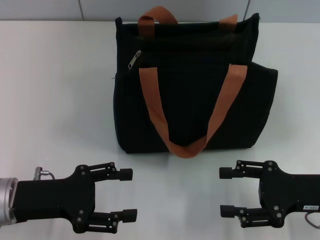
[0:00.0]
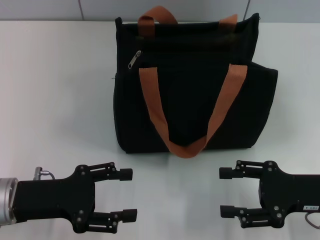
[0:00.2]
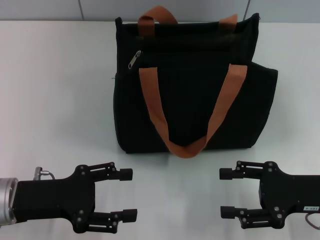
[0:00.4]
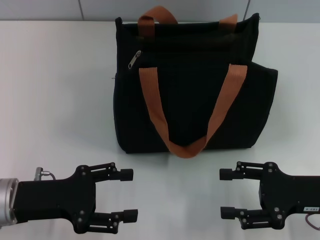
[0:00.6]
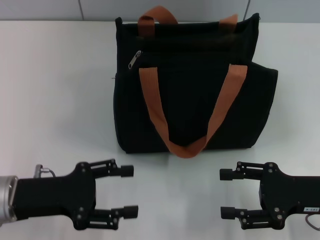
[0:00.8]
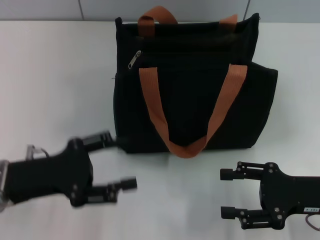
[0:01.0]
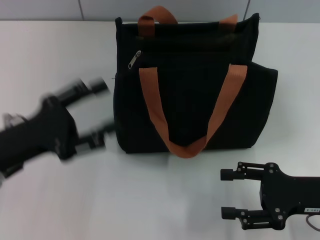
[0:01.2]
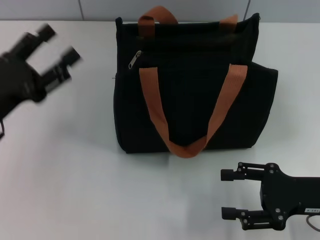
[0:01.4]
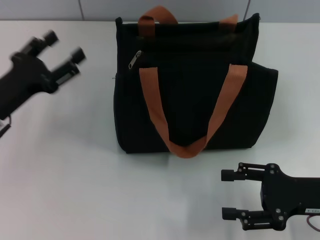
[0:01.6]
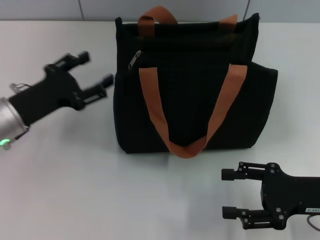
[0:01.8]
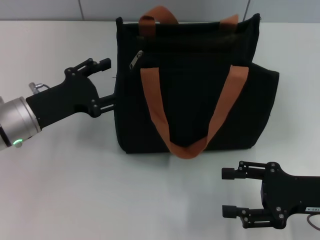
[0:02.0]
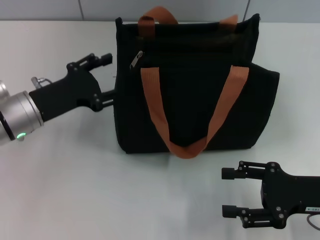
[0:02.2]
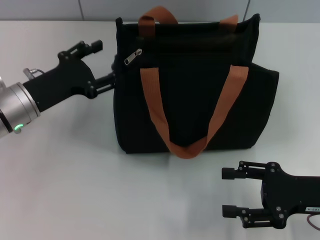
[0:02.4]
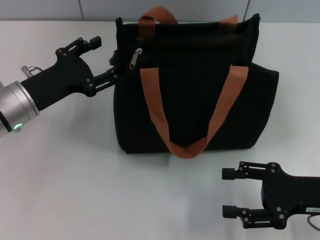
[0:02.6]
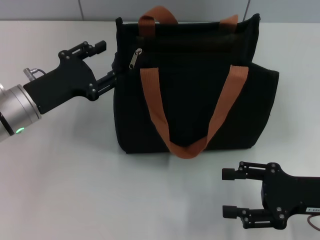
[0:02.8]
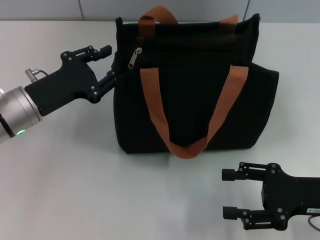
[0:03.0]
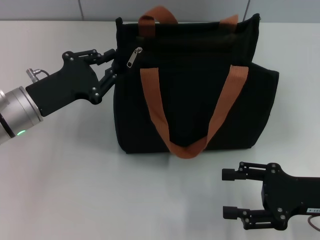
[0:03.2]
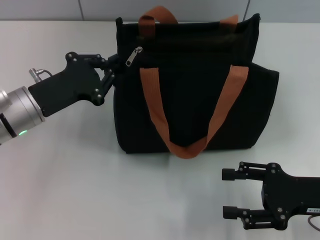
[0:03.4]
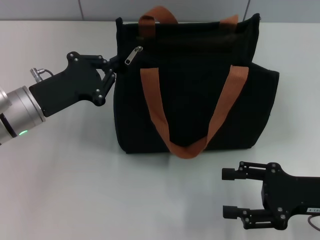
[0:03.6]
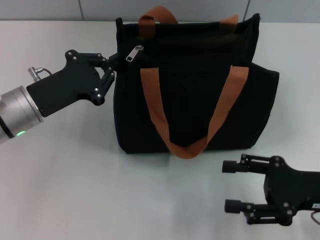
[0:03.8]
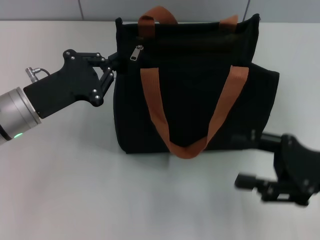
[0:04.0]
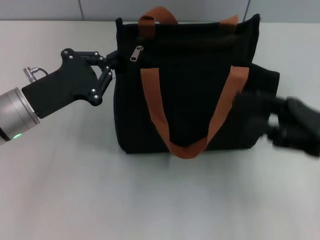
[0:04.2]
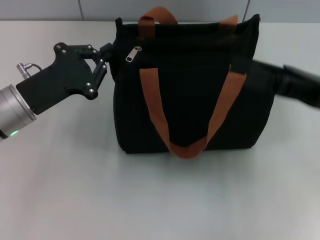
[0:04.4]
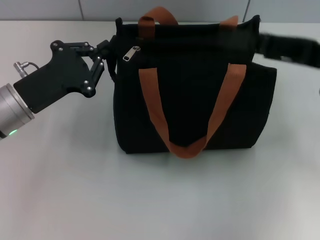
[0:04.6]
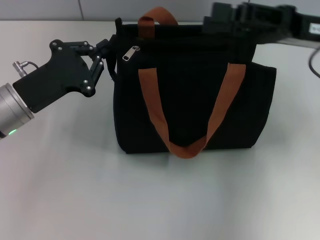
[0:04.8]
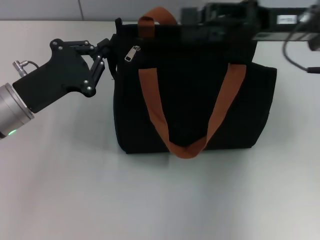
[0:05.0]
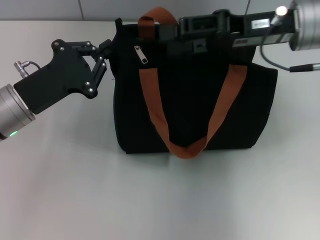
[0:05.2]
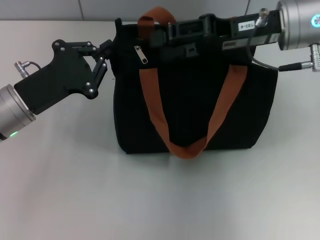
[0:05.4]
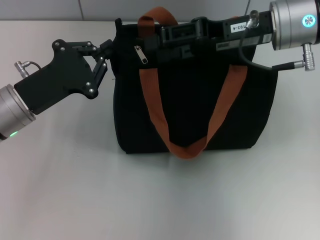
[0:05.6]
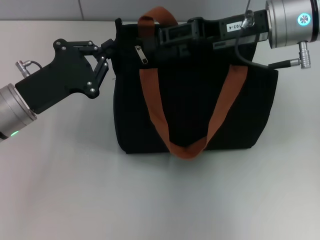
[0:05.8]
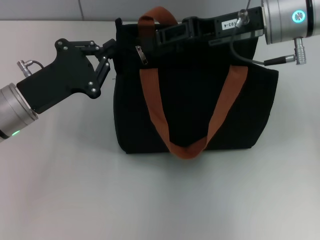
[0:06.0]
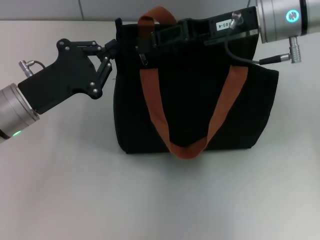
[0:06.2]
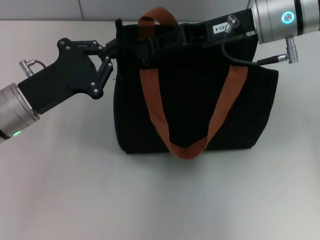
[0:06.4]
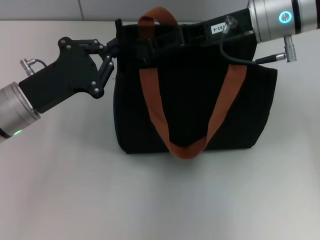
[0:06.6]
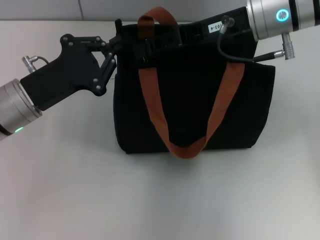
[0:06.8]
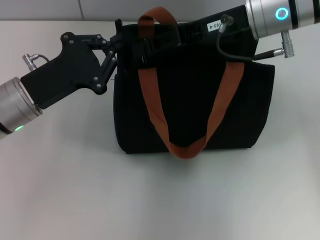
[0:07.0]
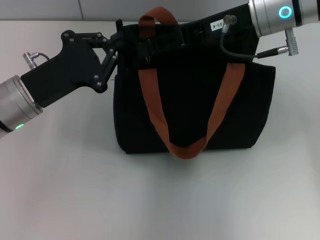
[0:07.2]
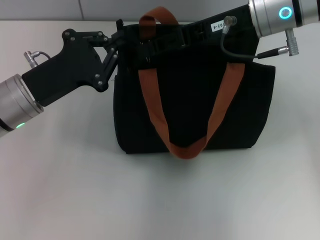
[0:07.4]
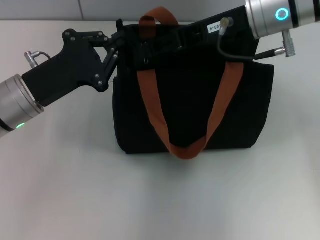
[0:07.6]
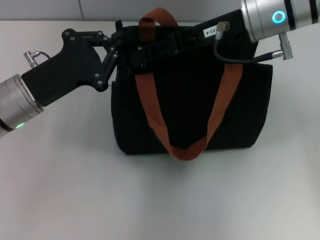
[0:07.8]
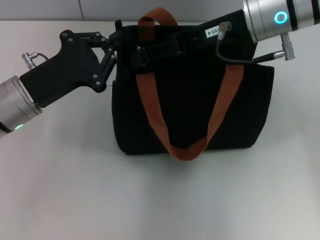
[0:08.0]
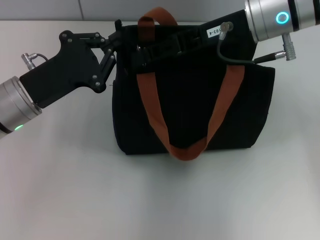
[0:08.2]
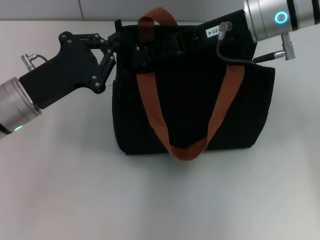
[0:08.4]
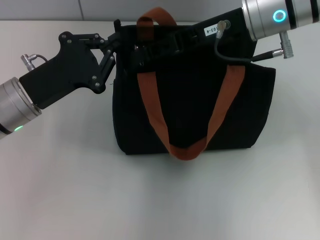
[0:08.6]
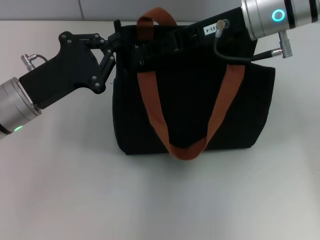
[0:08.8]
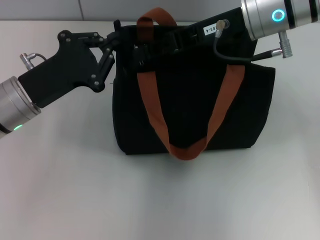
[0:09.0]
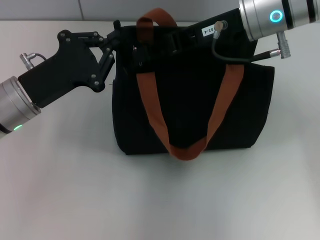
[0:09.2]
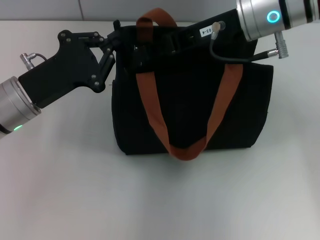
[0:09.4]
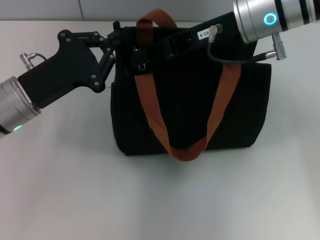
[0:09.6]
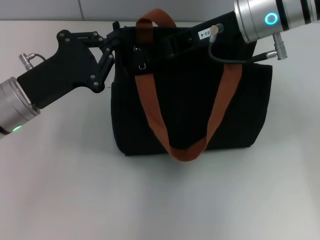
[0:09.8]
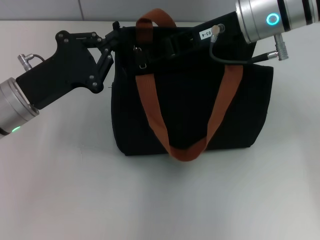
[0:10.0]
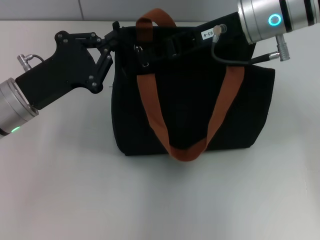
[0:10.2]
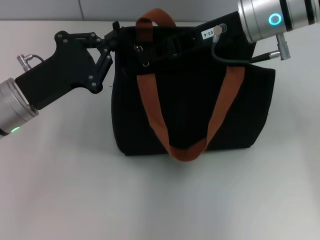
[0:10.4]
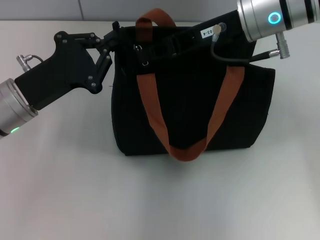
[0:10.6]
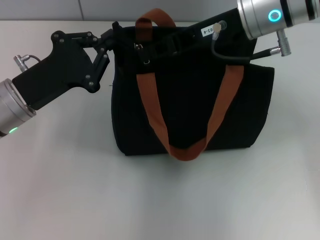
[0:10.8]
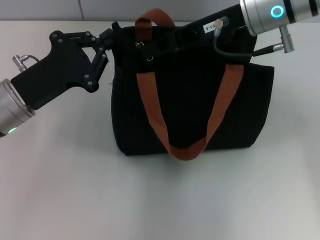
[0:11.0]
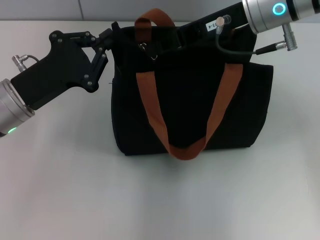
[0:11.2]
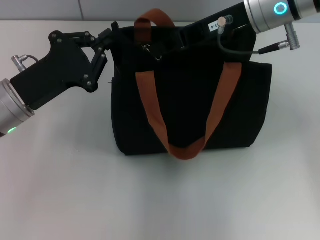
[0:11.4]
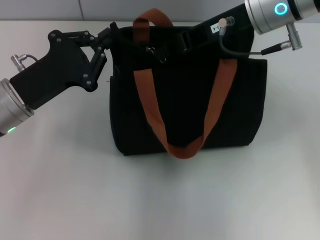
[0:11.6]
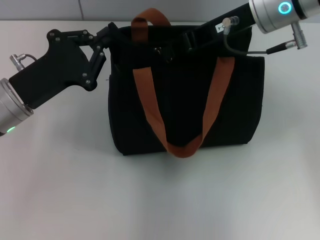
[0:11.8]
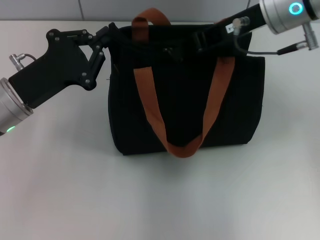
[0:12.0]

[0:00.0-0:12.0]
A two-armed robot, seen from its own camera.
0:00.0 to 0:01.6: The left gripper travels forward by roughly 5 cm.
0:01.6 to 0:03.0: The left gripper shifts by some 5 cm.
0:03.0 to 0:04.4: The right gripper moves upward and forward, about 10 cm; the left gripper closes.
0:04.4 to 0:06.0: The right gripper shifts some 15 cm forward, to the left and upward.
0:06.0 to 0:07.6: The grippers move only a little.
0:07.6 to 0:09.0: Both grippers stay put.
0:09.0 to 0:10.4: The right gripper closes its fingers.
0:10.4 to 0:12.0: The grippers make only small movements.

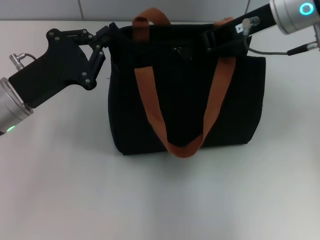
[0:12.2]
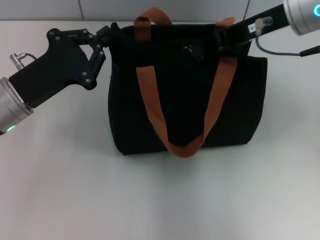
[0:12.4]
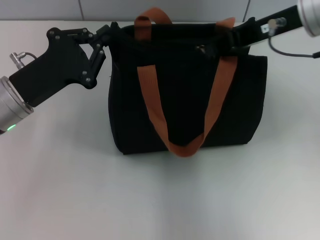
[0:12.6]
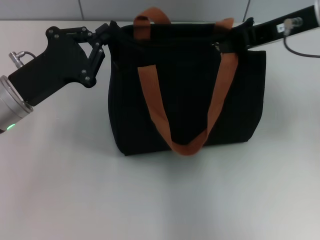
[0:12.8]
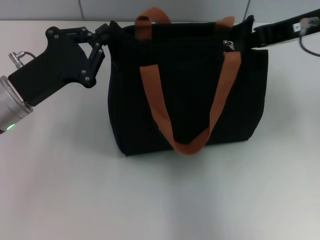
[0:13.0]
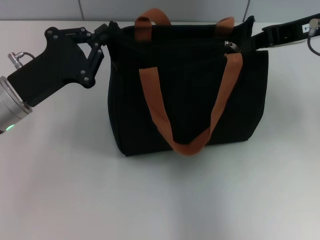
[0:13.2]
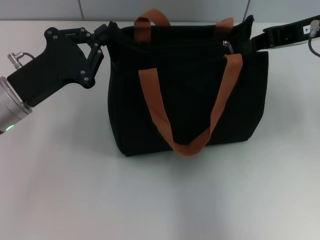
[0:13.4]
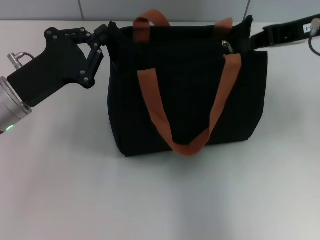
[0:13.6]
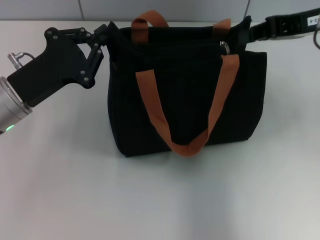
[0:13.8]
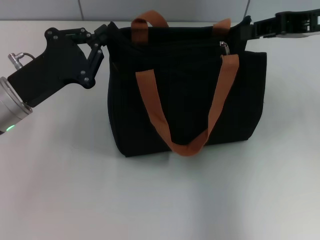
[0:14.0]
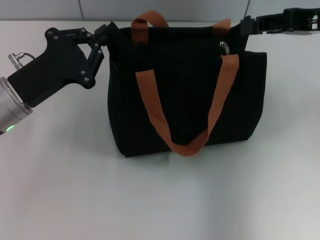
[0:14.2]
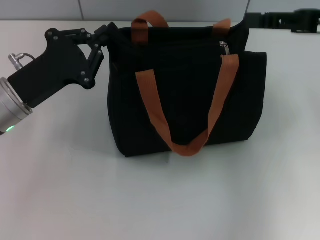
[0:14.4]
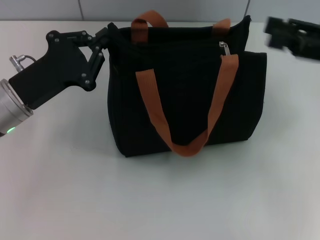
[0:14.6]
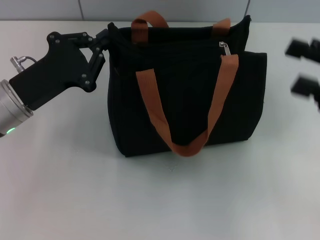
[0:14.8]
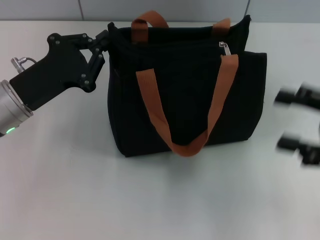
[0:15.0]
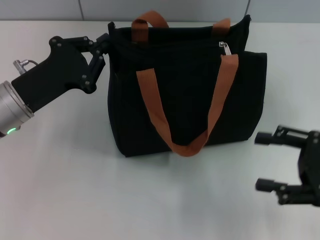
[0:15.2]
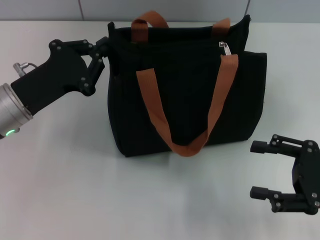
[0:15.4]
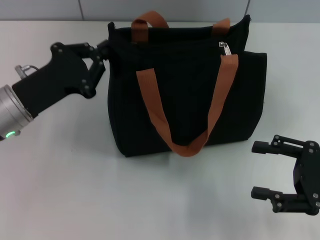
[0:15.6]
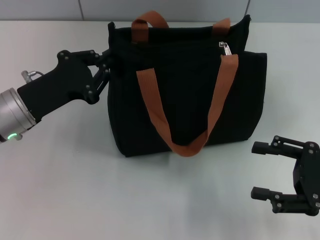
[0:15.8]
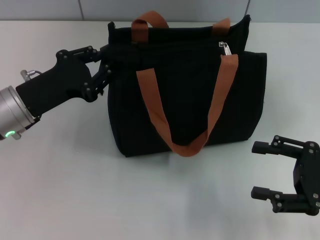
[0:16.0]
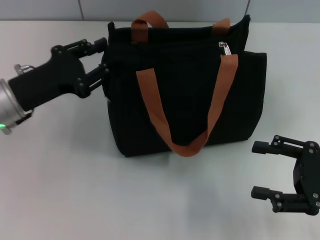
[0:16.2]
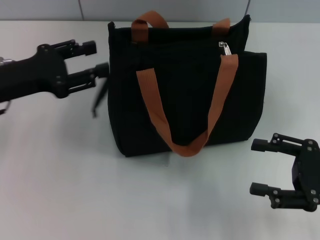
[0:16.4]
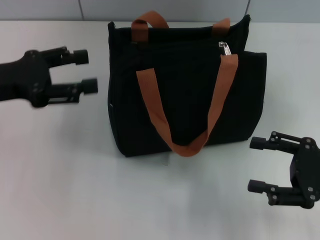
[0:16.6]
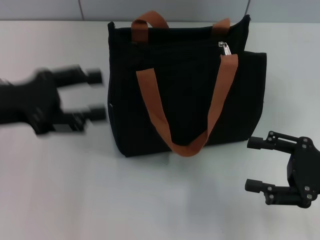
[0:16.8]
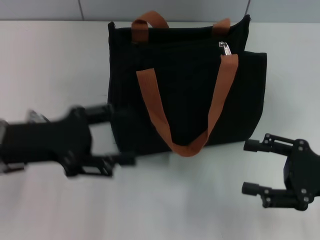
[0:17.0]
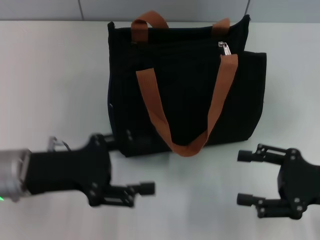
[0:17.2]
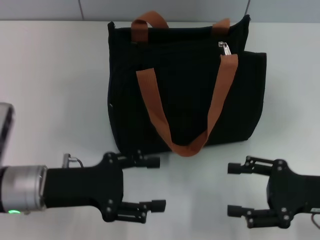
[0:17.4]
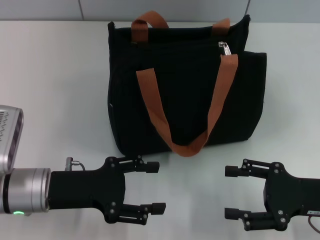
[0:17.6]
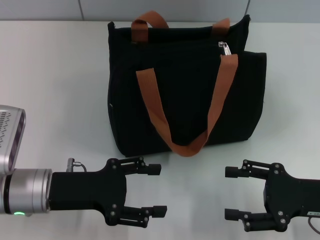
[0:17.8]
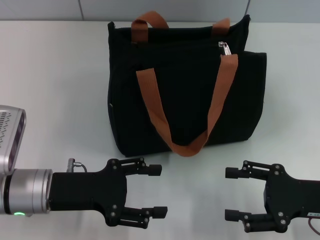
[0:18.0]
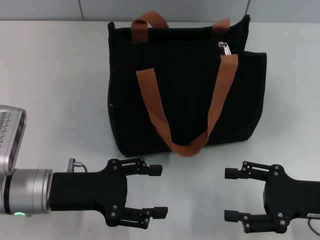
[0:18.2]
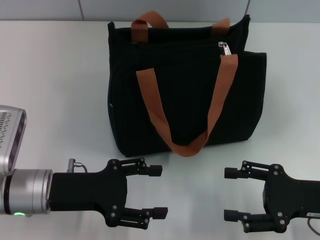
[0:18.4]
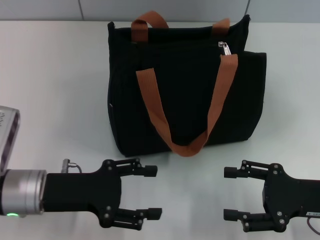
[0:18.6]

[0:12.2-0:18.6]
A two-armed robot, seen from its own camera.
Step, 0:13.2 to 0:16.2: Grab the zipper with your left hand.
0:12.2 to 0:13.8: The right gripper is displaced to the right by roughly 10 cm.
0:13.8 to 0:15.4: The right gripper travels downward and backward by approximately 20 cm, and opens up.
0:15.4 to 0:17.0: The left gripper opens up.
0:17.0 to 0:18.6: The left gripper shifts approximately 5 cm downward.
